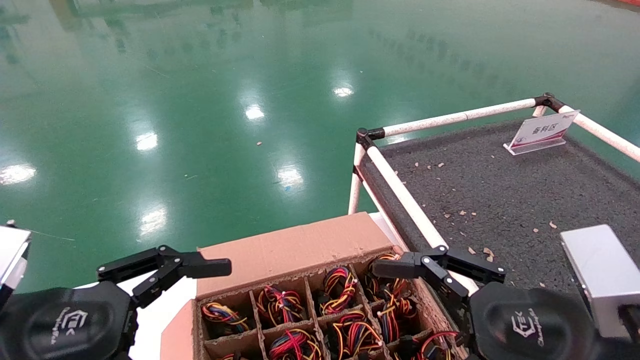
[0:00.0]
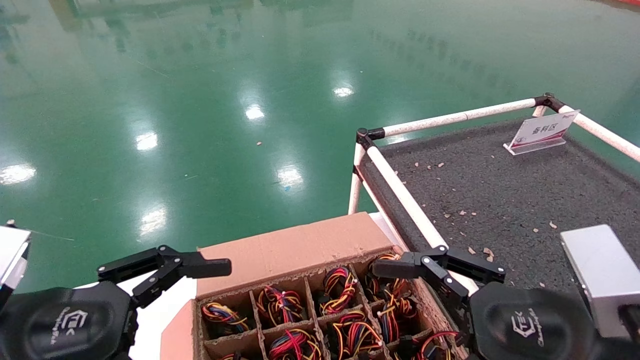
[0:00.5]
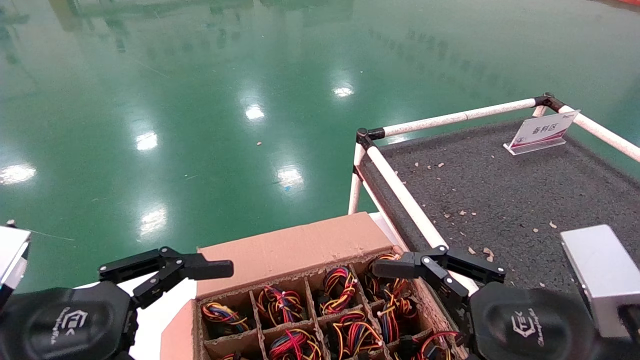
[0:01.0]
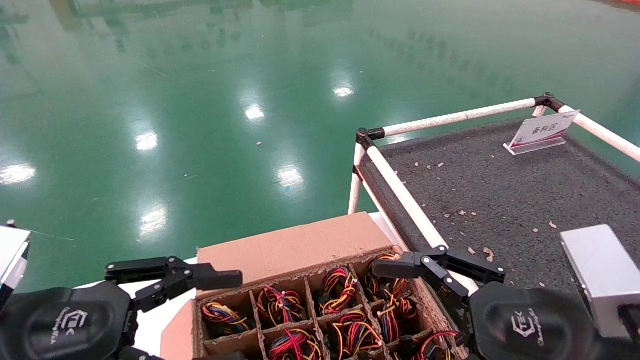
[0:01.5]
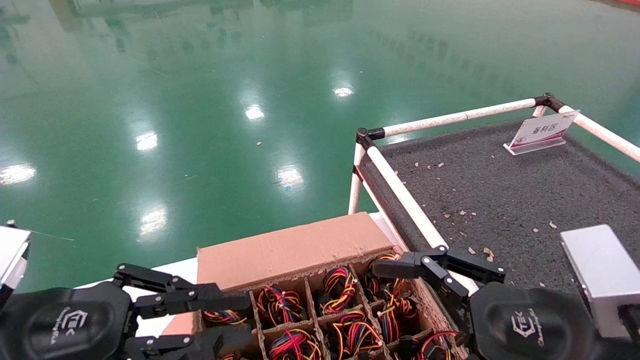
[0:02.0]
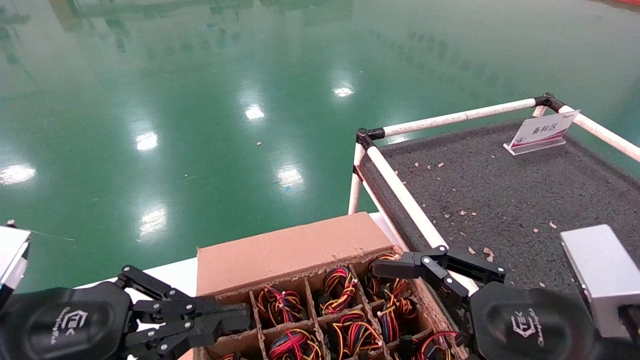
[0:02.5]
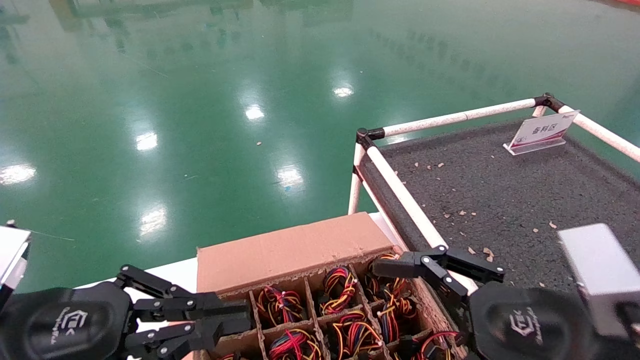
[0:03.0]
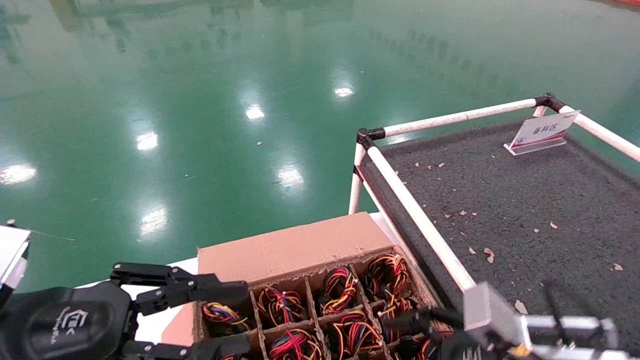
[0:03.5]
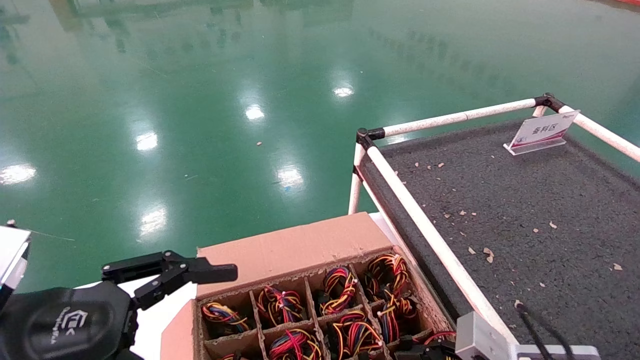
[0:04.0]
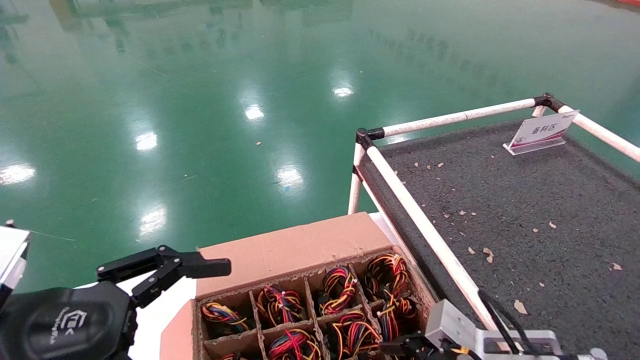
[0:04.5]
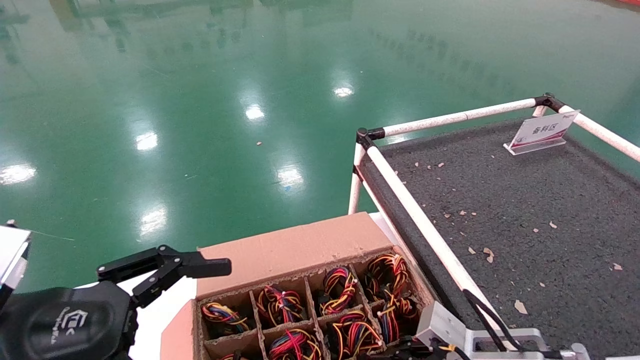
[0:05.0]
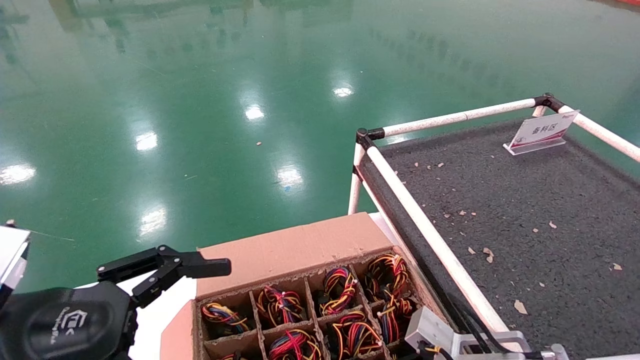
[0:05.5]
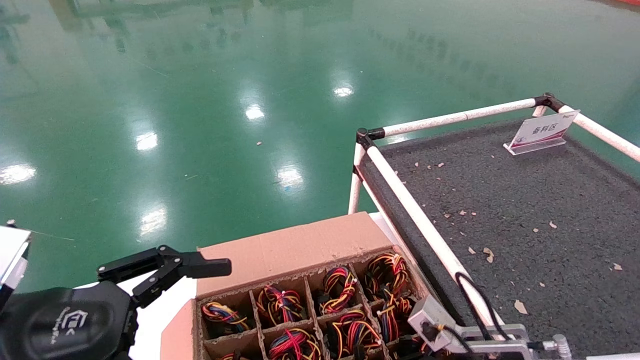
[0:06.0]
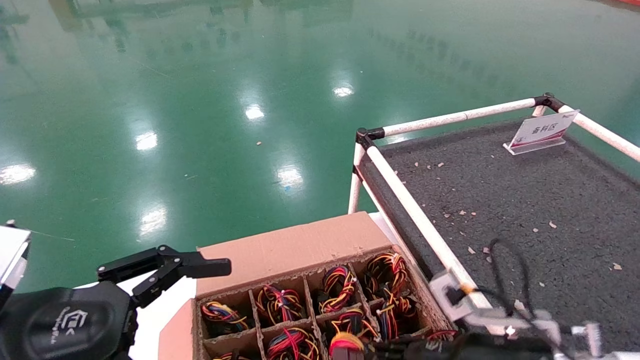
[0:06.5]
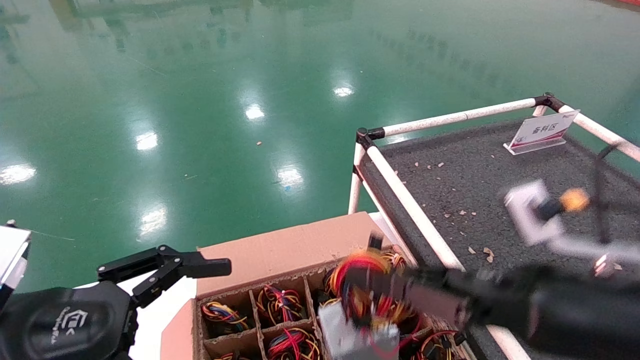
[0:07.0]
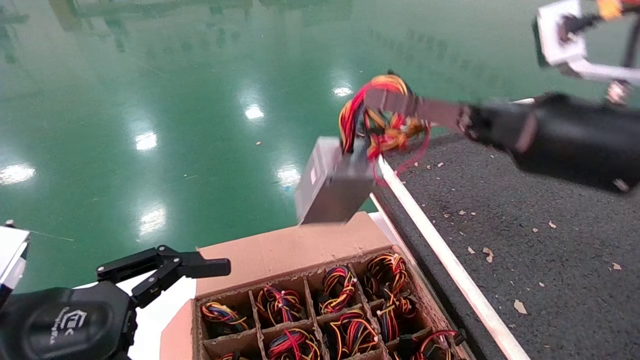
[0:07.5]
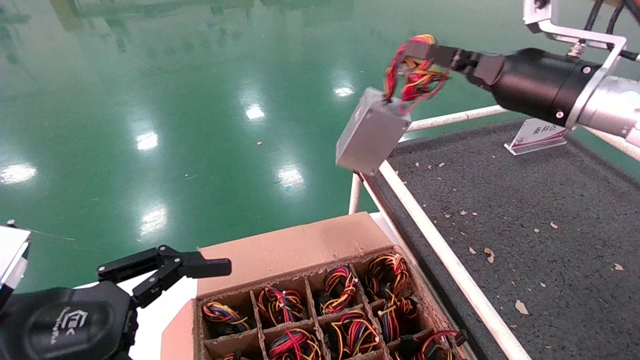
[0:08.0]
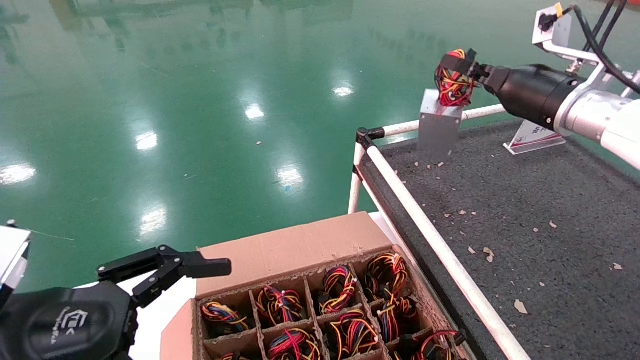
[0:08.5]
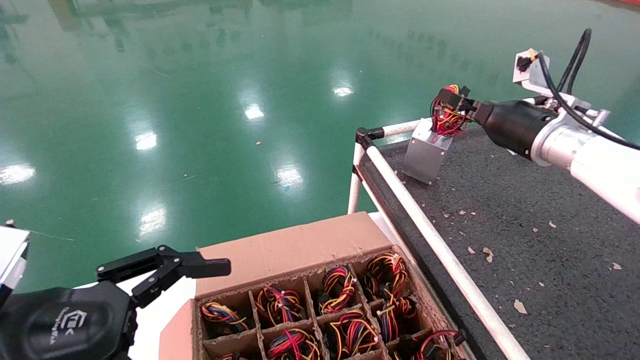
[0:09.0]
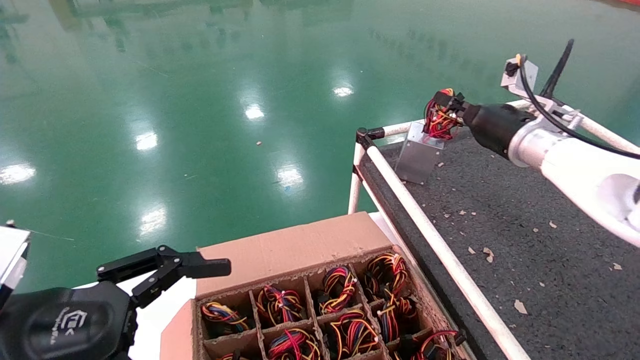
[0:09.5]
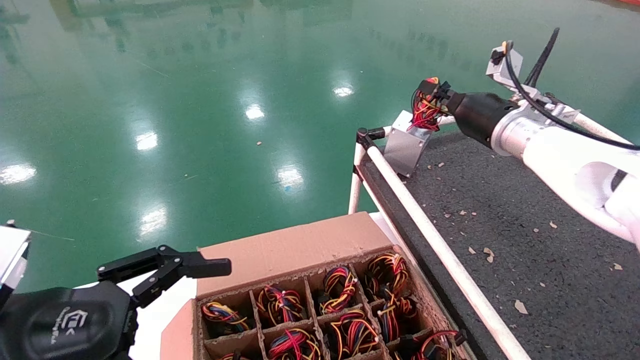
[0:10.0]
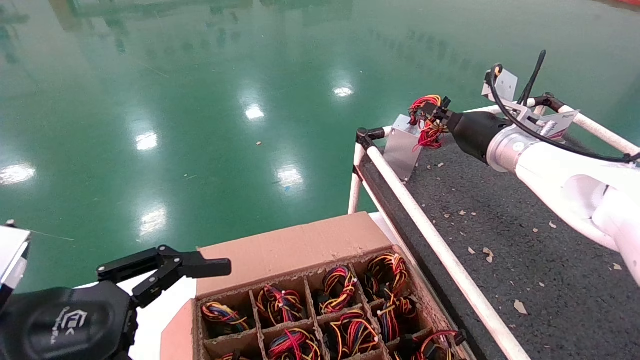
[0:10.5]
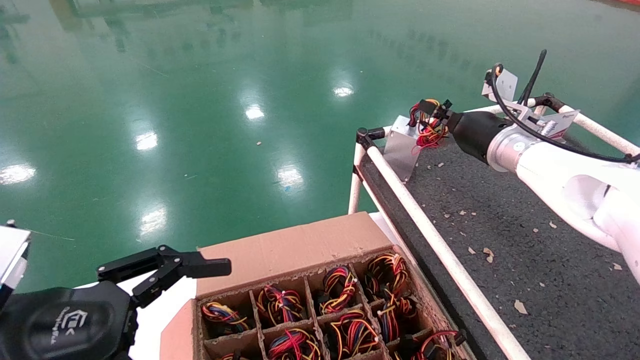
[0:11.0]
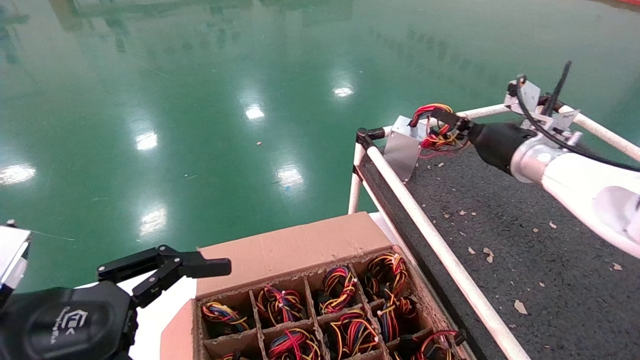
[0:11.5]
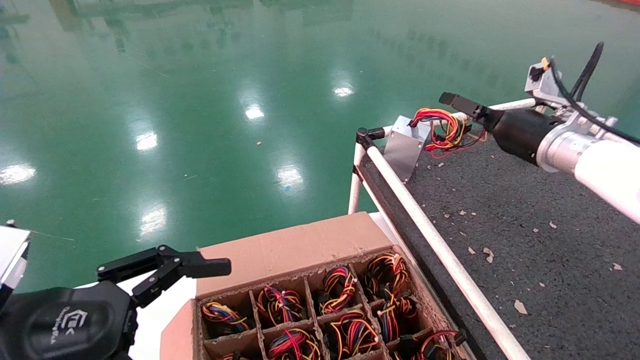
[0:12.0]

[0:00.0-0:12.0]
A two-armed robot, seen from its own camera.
Step, 0:03.5 to 0:05.5: Grab and lift the power supply from the large box.
Step, 0:06.0 to 0:11.0: Place the power supply on the operating table.
0:00.0 to 0:02.0: The left gripper closes.
0:02.0 to 0:04.0: The left gripper opens its fingers. Meanwhile the right gripper travels downward and forward by some 10 cm.
0:04.0 to 0:06.0: The right gripper changes place by about 5 cm, and closes.
0:06.0 to 0:08.0: The right gripper goes approximately 30 cm upward.
0:08.0 to 0:10.0: The right gripper moves forward and downward, roughly 10 cm.
0:10.0 to 0:12.0: The right gripper moves to the right, approximately 5 cm, and opens up.

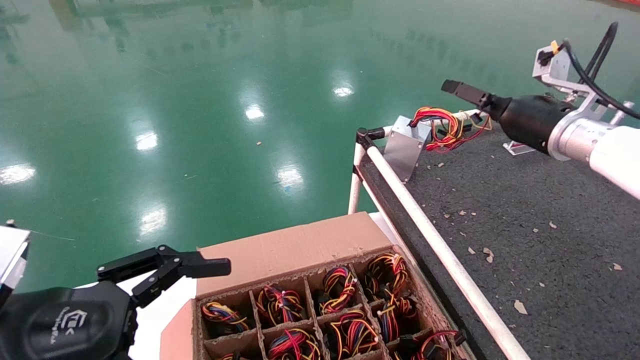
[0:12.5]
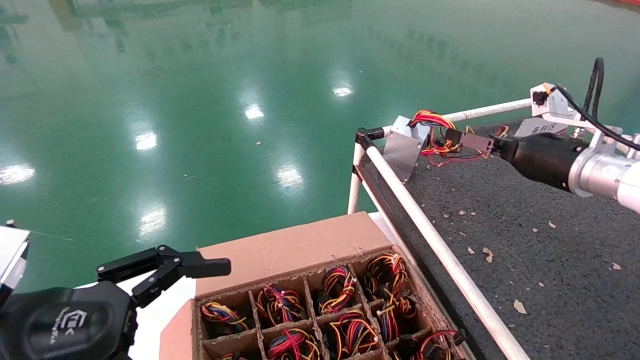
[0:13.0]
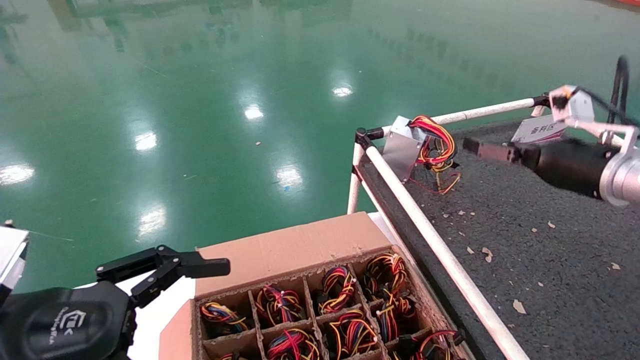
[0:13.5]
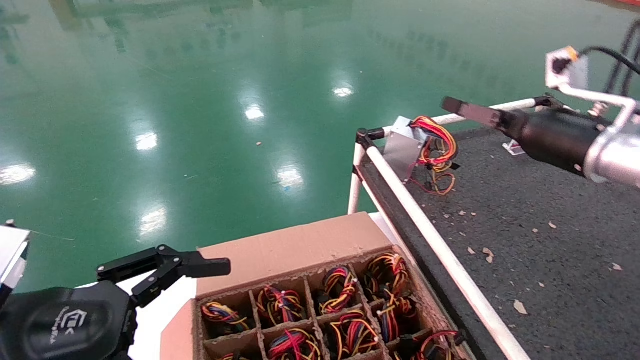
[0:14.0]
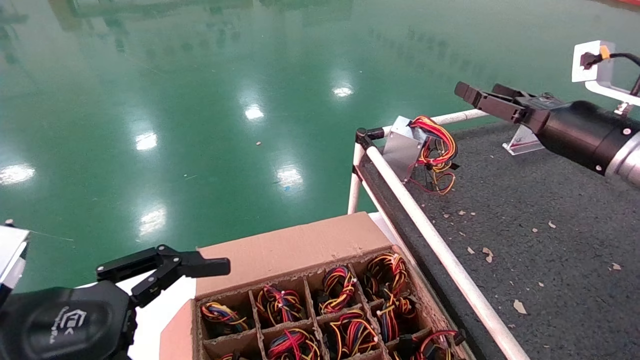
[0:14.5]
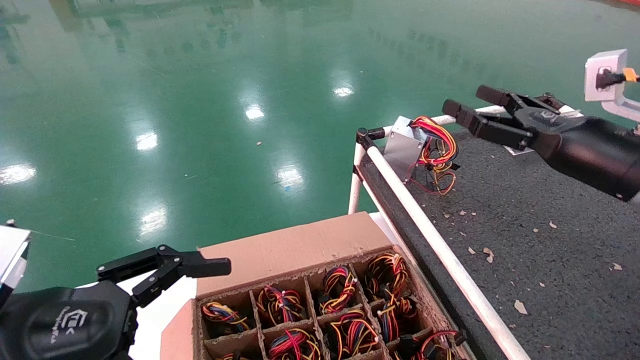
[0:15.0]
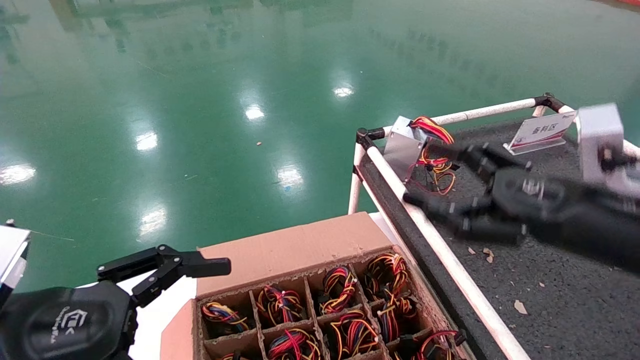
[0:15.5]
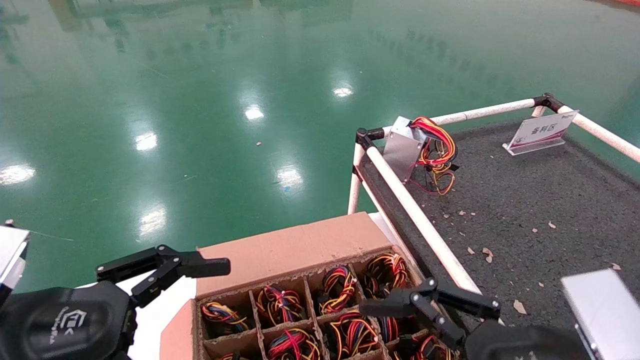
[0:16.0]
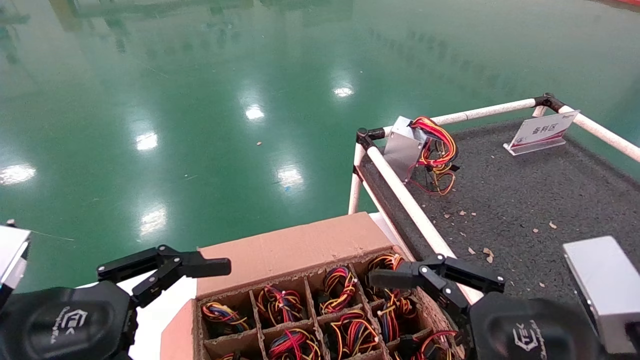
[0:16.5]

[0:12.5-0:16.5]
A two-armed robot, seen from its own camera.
0:12.5 to 0:14.5: The right gripper goes roughly 5 cm backward.
0:14.5 to 0:16.5: The right gripper shifts some 25 cm backward, downward and to the left.
